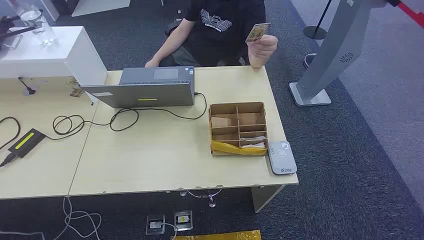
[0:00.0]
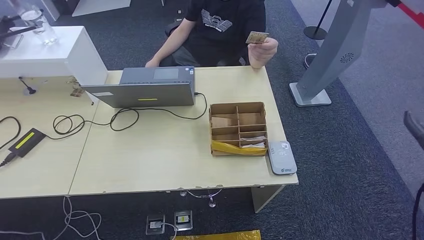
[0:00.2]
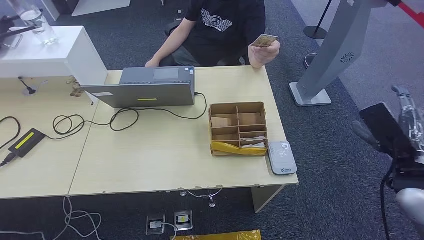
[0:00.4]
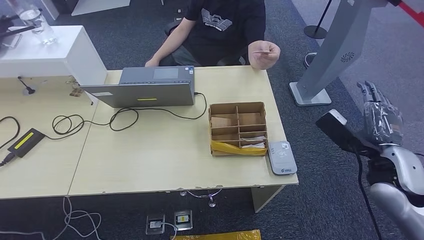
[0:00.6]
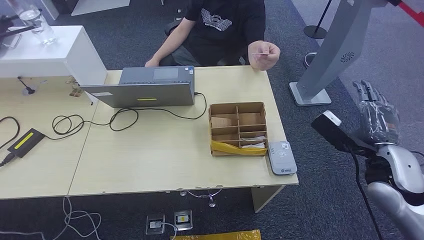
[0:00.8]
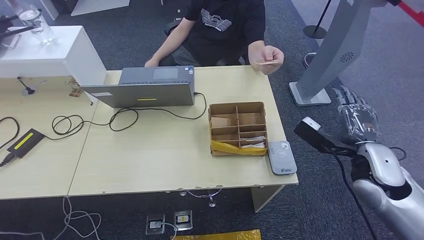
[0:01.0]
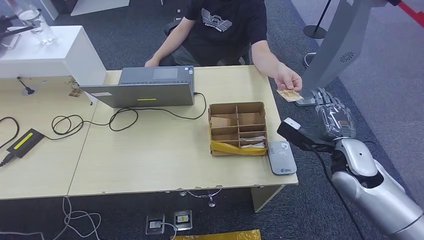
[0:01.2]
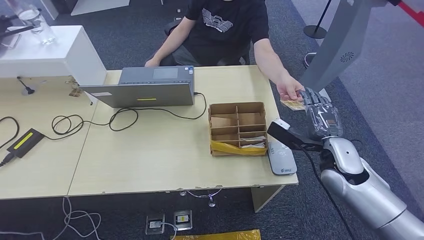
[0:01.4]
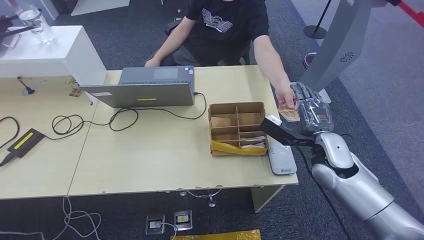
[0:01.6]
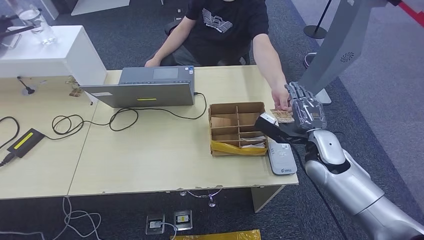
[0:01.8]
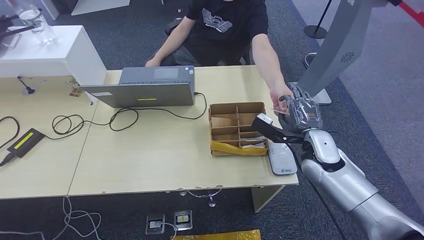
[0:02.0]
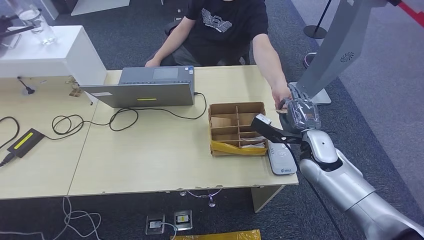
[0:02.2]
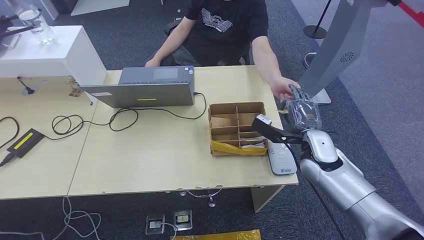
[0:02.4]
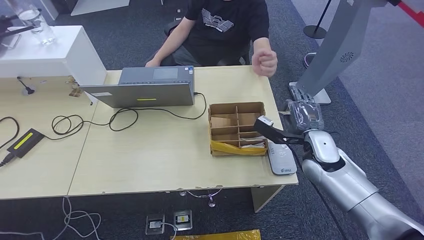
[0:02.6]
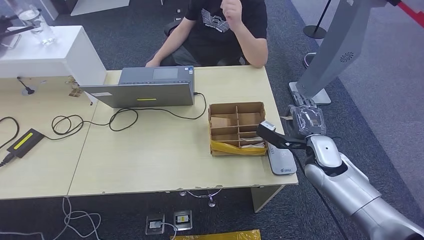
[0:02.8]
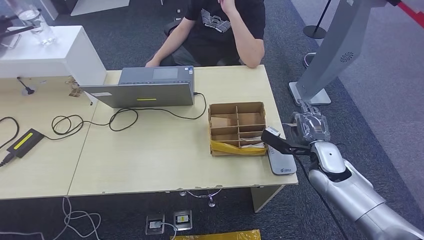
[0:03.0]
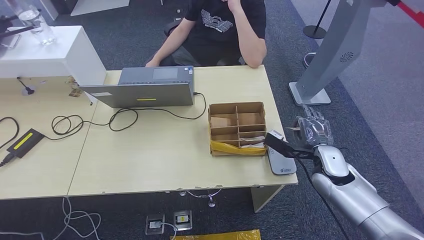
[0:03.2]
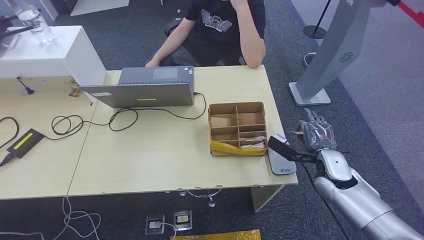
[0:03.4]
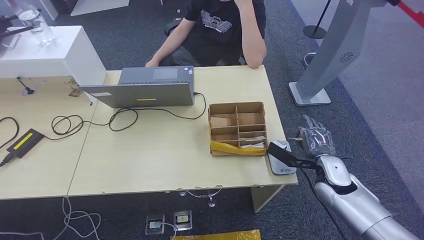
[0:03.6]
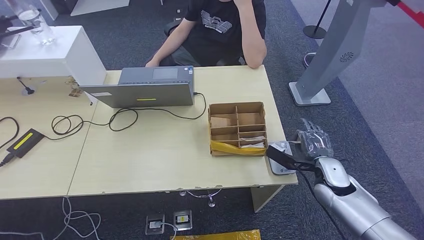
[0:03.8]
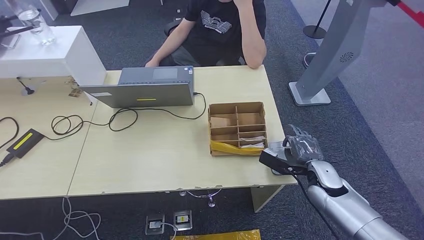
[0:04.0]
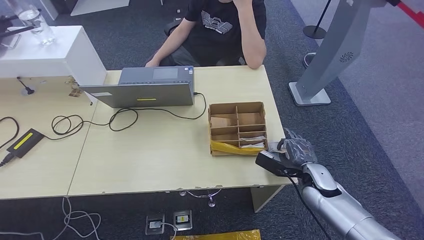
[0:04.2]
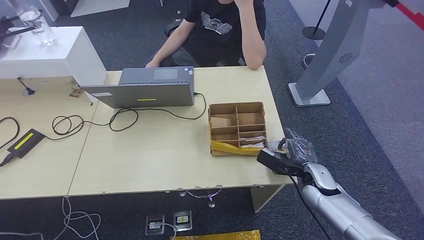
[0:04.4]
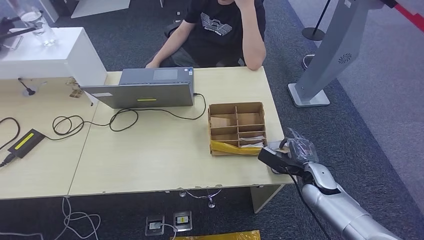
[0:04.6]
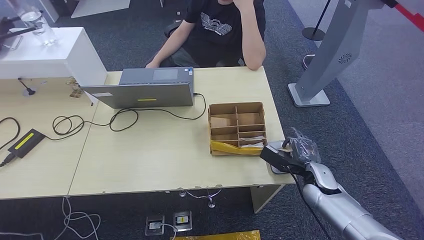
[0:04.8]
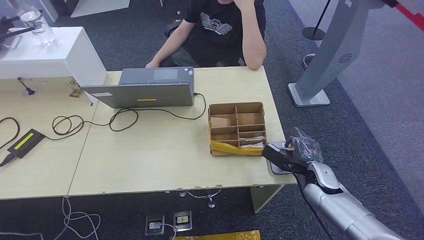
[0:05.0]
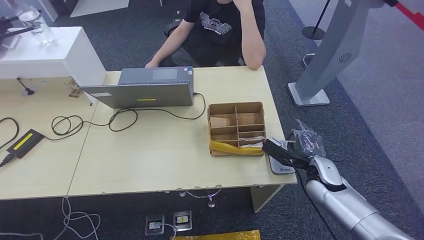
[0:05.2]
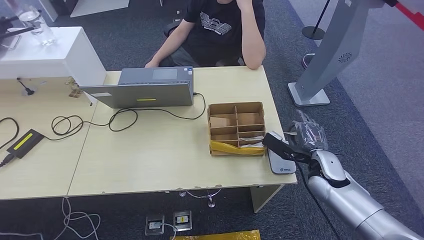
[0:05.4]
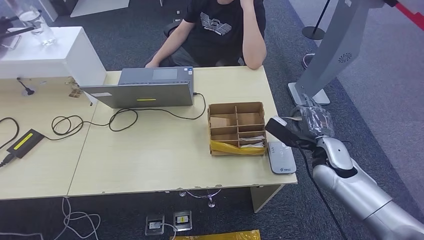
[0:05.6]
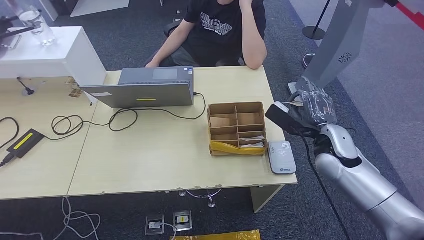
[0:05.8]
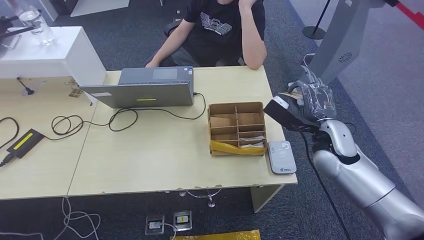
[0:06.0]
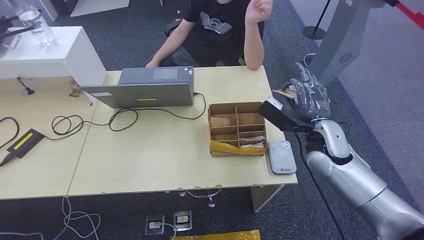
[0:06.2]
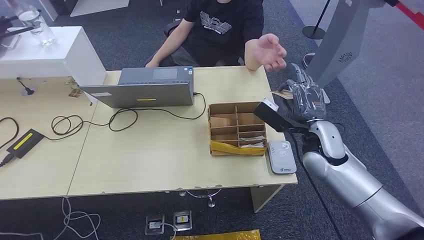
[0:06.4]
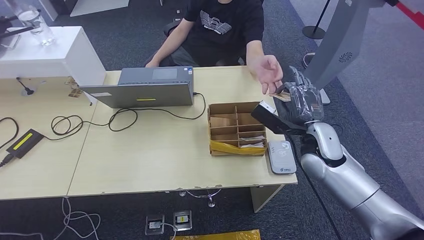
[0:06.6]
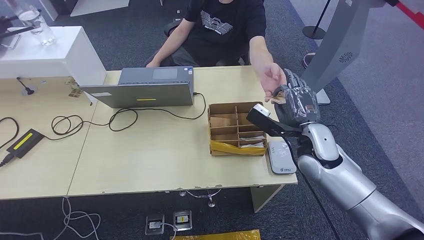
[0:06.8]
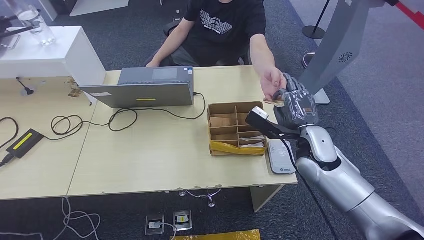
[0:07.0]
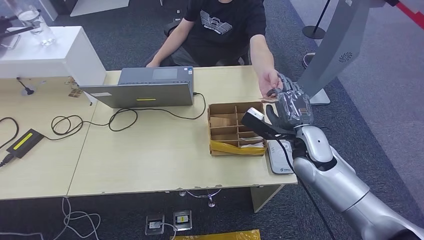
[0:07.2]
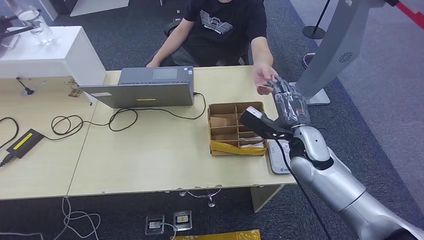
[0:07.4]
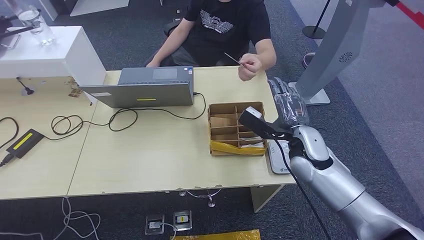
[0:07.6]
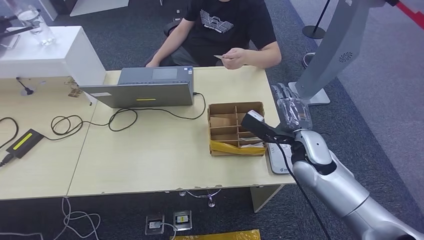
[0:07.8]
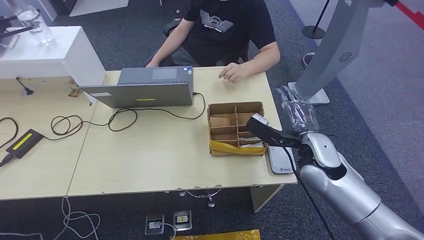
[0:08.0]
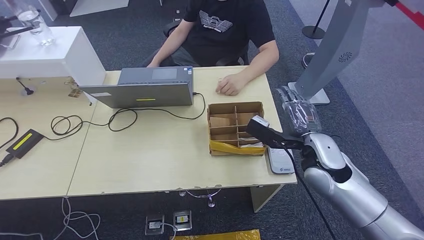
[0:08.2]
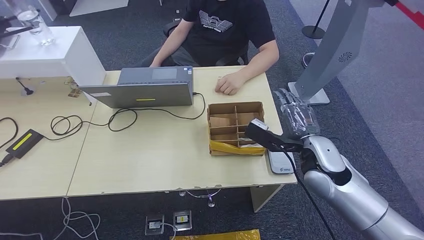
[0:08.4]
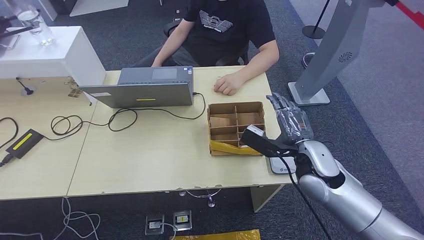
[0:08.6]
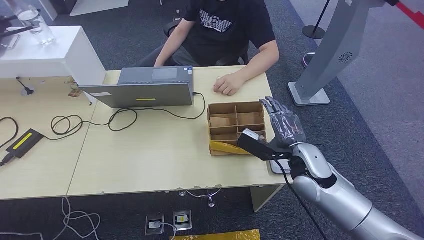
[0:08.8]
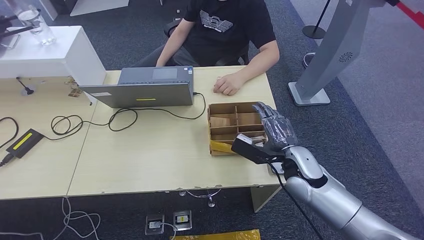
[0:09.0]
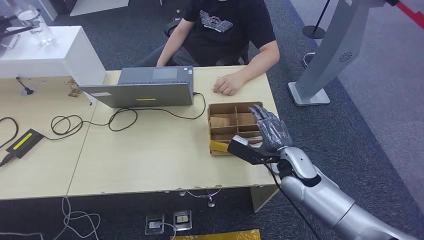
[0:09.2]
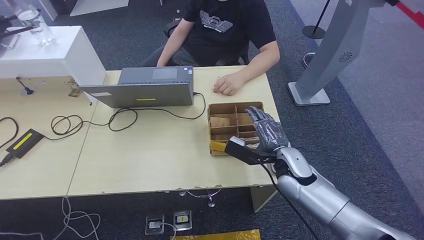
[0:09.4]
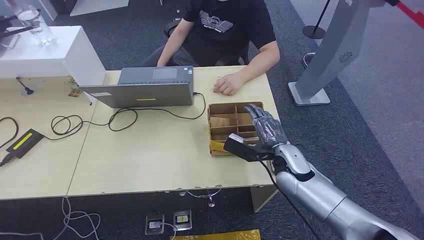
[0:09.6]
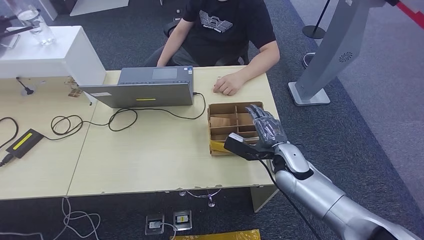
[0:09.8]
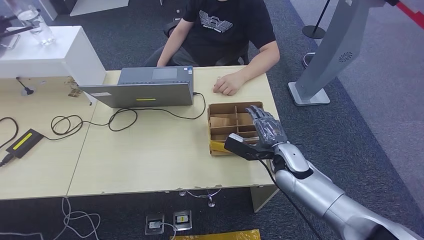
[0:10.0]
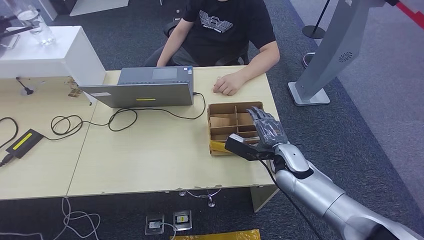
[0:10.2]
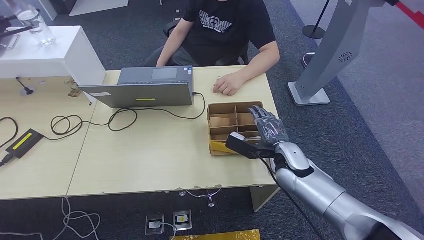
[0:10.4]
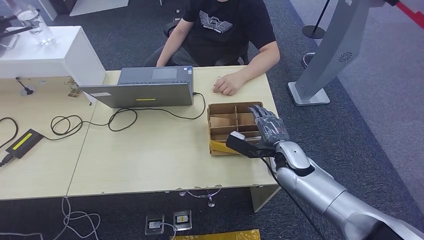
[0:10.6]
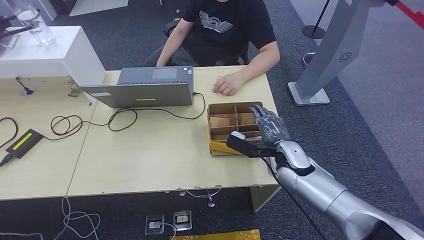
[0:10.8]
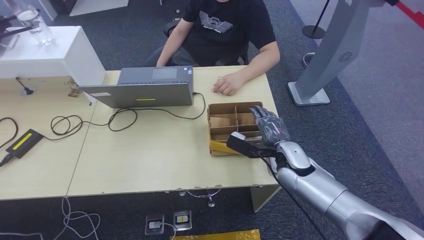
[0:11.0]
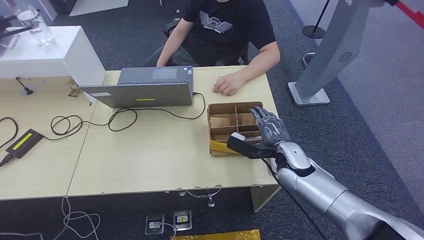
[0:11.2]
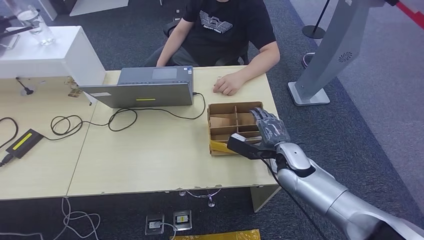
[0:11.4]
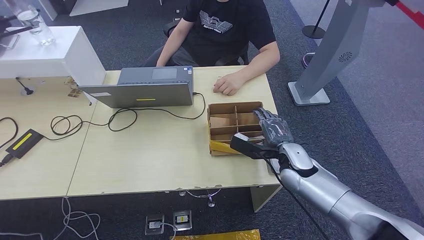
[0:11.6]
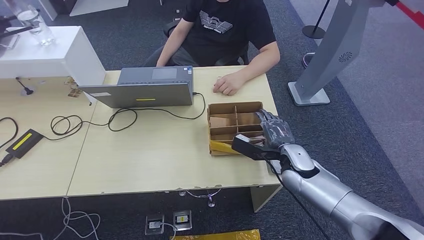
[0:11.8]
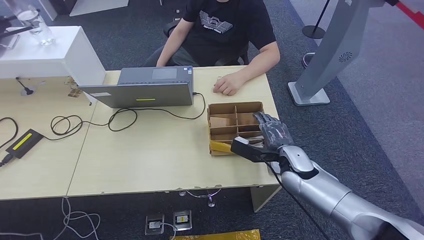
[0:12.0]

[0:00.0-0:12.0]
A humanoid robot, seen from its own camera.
Step, 0:00.0 to 0:03.6: Take the ID card from the person's hand.
Step, 0:03.8 to 0:04.6: Place the ID card on the card reader.
Step, 0:04.8 to 0:07.2: Hand the ID card to the person.
0:01.6 to 0:03.0: The hands stay close to where they were, moving slightly.
0:03.0 to 0:04.4: The right hand travels downward by roughly 10 cm.
0:04.4 to 0:06.0: The right hand goes roughly 15 cm upward.
0:06.0 to 0:07.6: The right hand travels to the left by some 5 cm.
0:07.6 to 0:09.0: The hands move only a little.
0:09.0 to 0:12.0: The hands make only small movements.

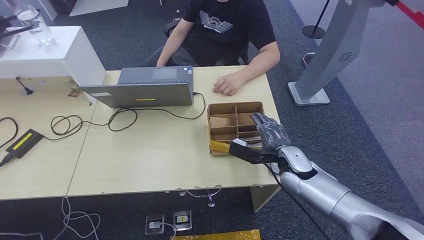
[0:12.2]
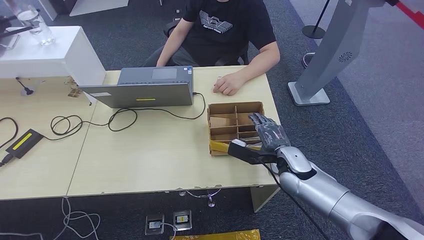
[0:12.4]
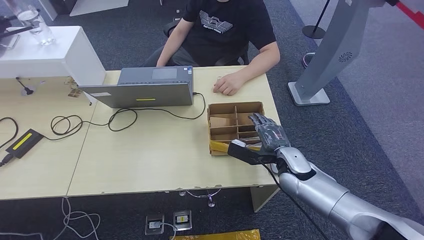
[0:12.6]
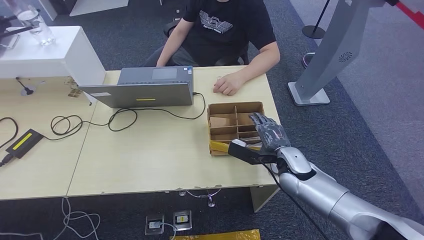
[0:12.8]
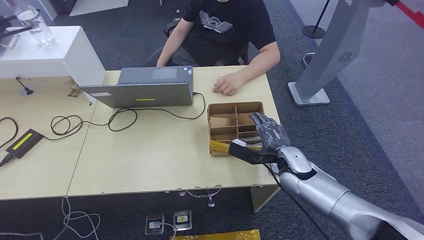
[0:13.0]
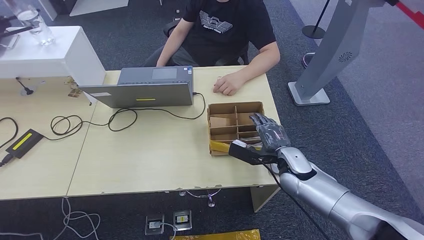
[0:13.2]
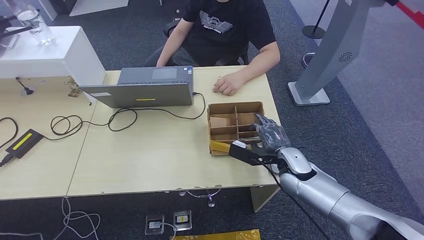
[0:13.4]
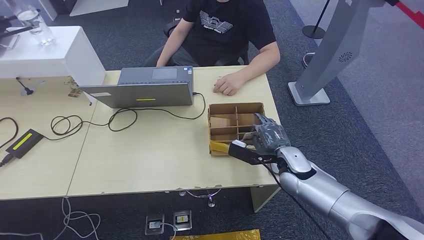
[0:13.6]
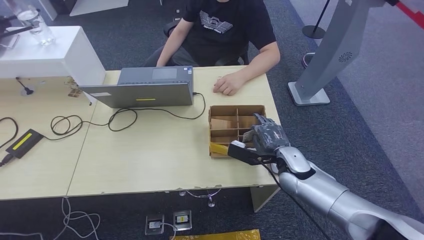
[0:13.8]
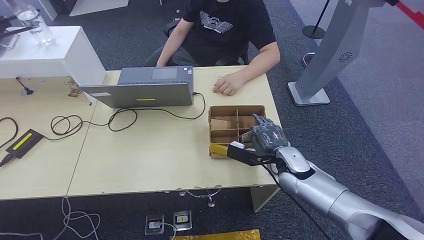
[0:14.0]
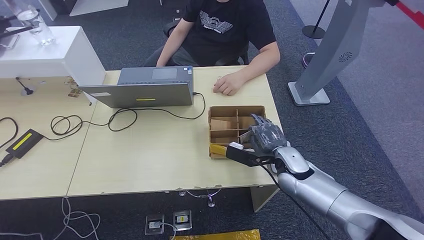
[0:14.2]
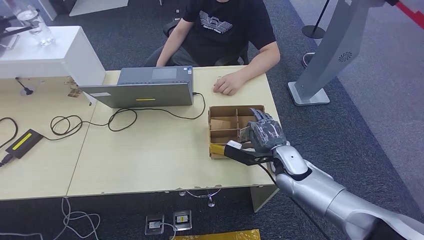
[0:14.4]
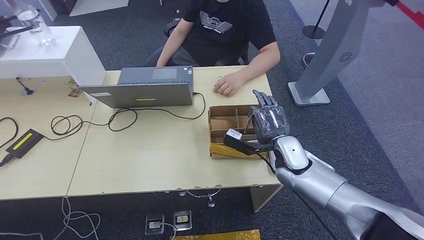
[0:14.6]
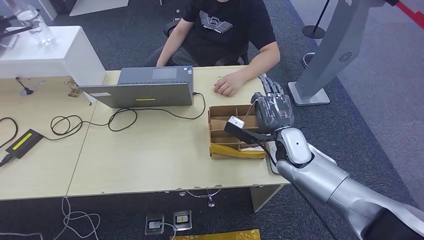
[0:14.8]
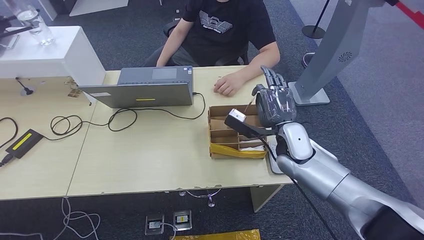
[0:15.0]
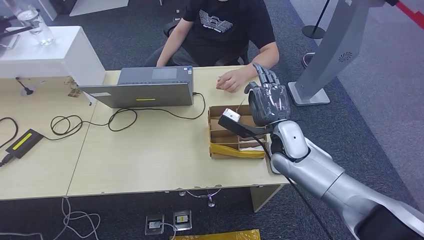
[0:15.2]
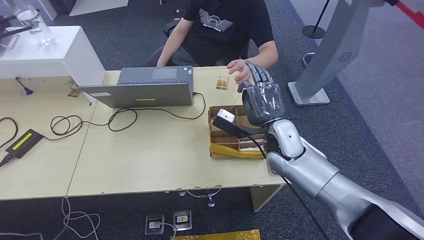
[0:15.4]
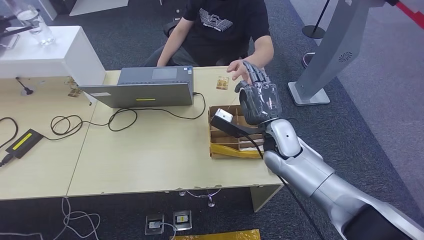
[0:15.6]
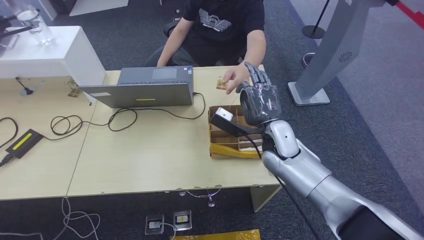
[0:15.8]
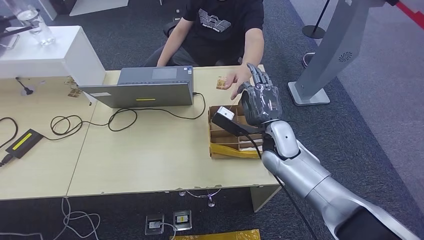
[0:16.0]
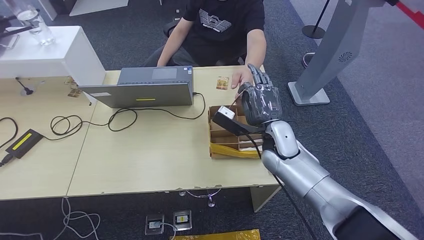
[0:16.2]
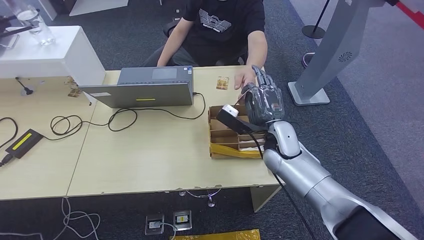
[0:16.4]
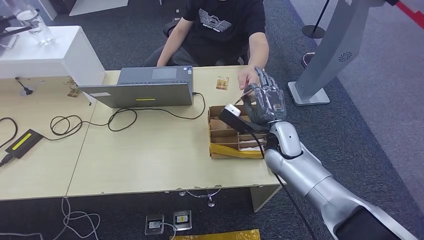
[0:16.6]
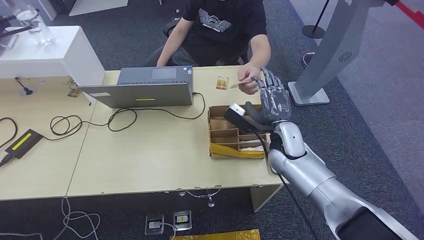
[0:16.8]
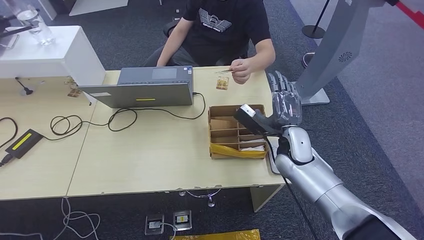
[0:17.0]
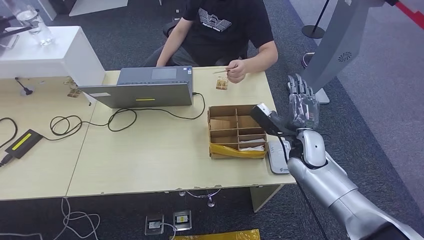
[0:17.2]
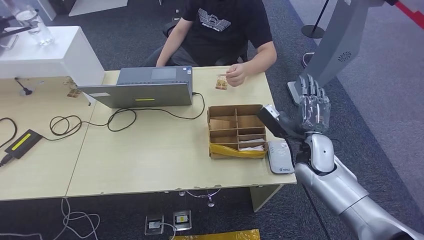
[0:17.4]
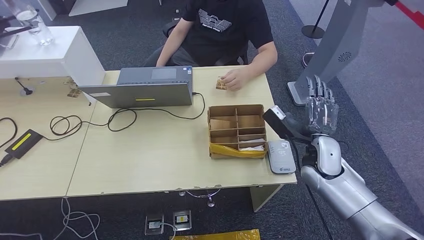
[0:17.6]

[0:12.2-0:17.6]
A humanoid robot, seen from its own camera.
Step, 0:12.2 to 0:15.2: Pick up the room key from the key card box.
Step, 0:15.4 to 0:17.6: Hand the room key to the person.
0:12.2 to 0:13.6: The two hands keep their place.
0:13.6 to 0:15.0: The right hand goes approximately 5 cm upward.
0:15.0 to 0:16.2: There are only small adjustments of the hands.
0:16.2 to 0:17.6: The right hand goes some 10 cm to the right.
